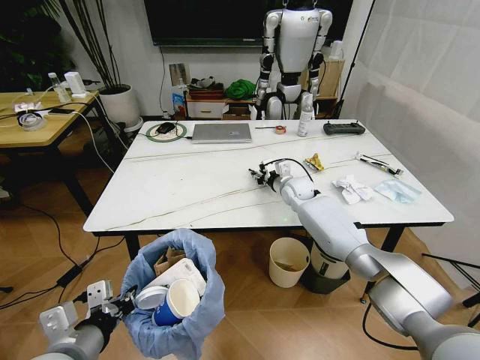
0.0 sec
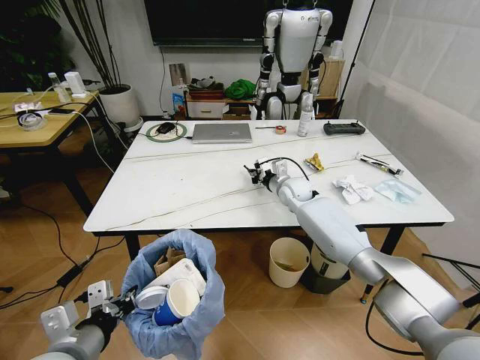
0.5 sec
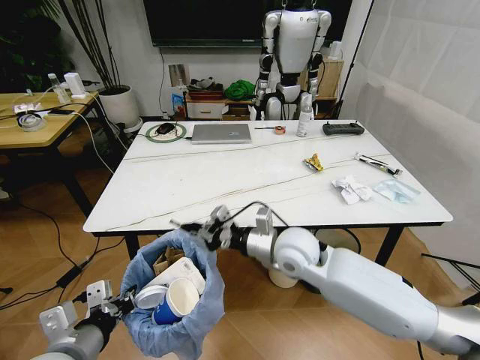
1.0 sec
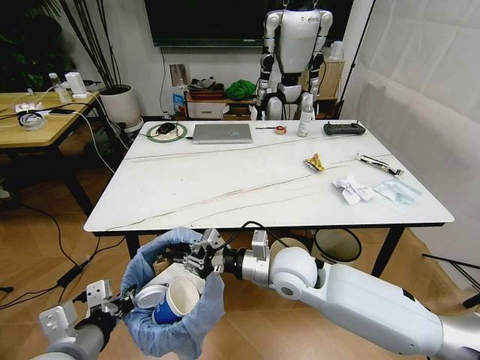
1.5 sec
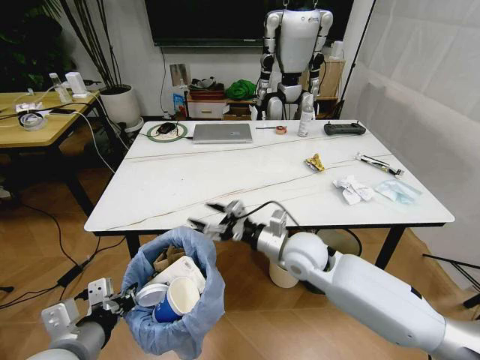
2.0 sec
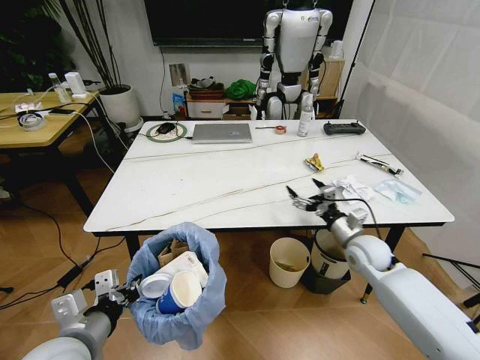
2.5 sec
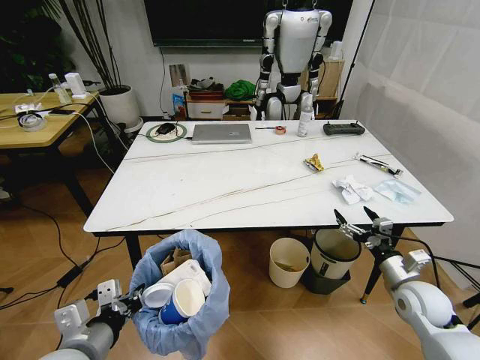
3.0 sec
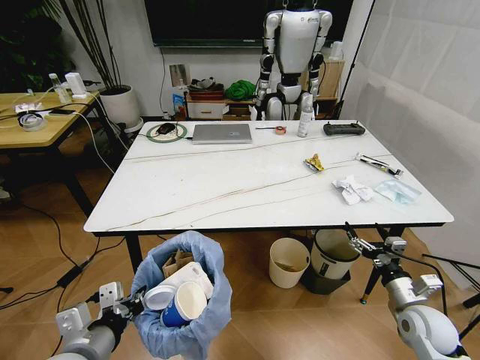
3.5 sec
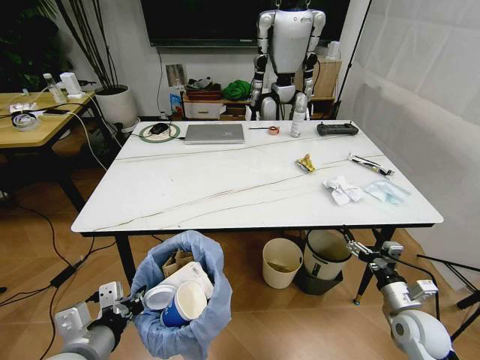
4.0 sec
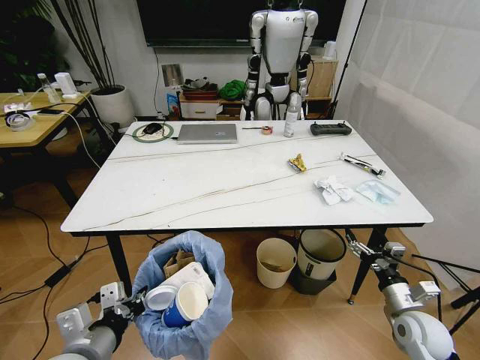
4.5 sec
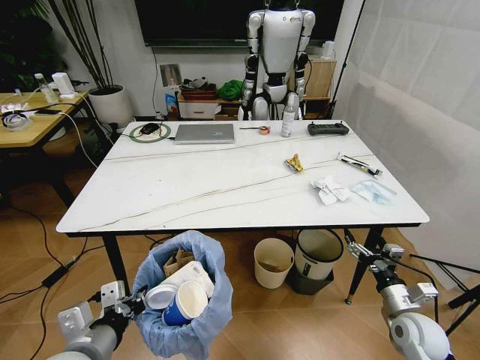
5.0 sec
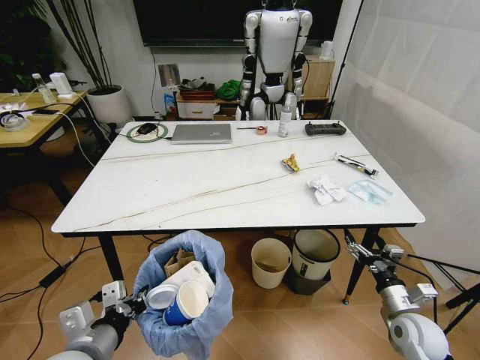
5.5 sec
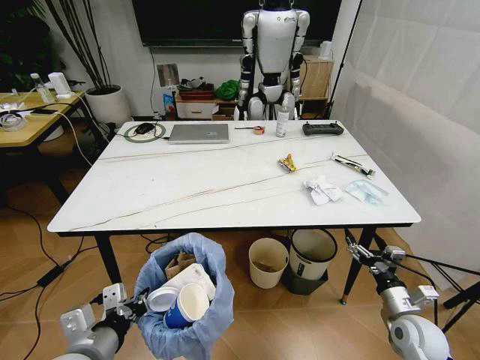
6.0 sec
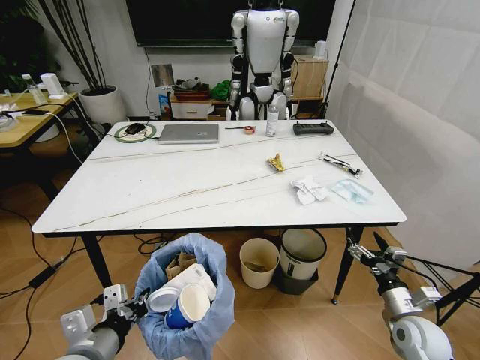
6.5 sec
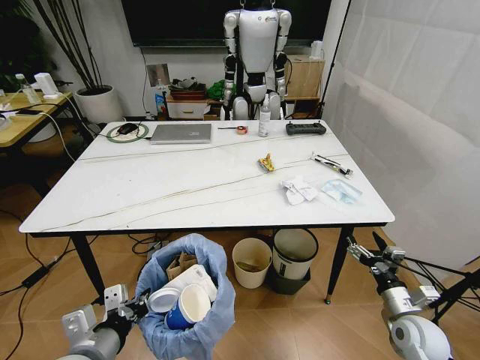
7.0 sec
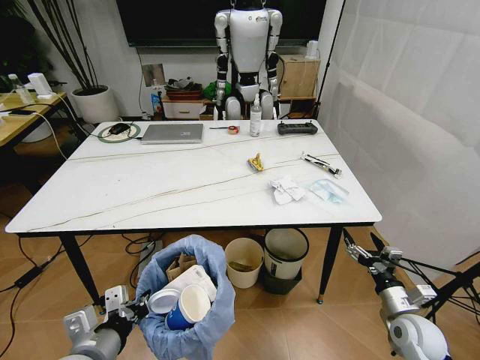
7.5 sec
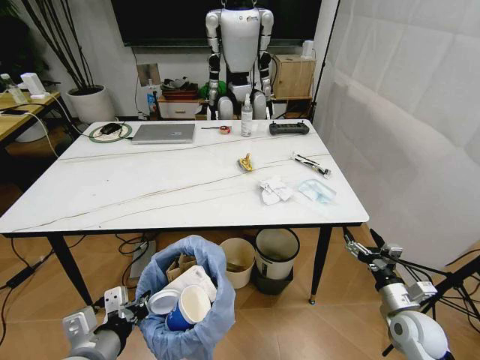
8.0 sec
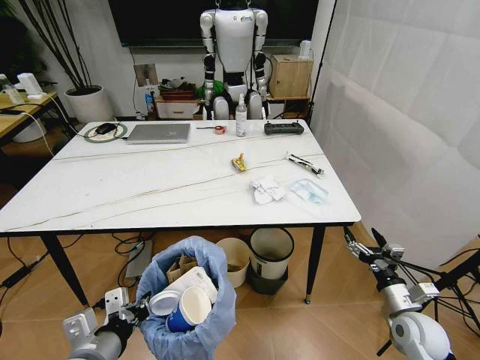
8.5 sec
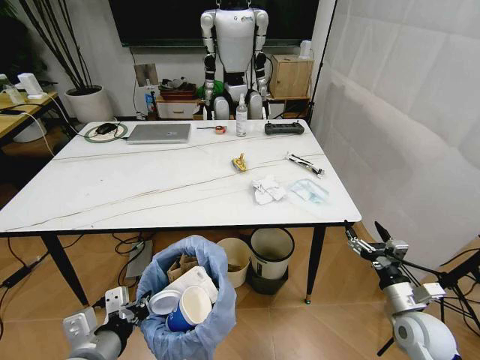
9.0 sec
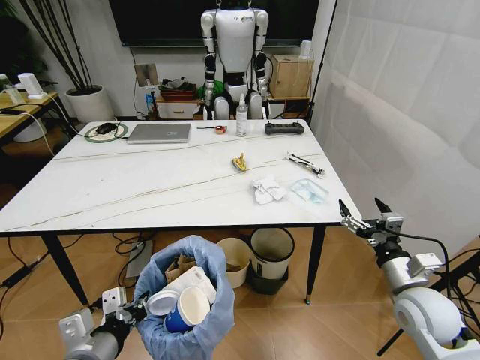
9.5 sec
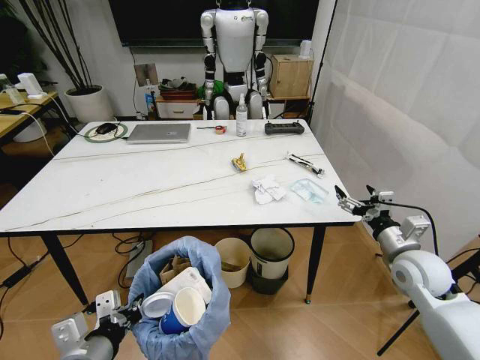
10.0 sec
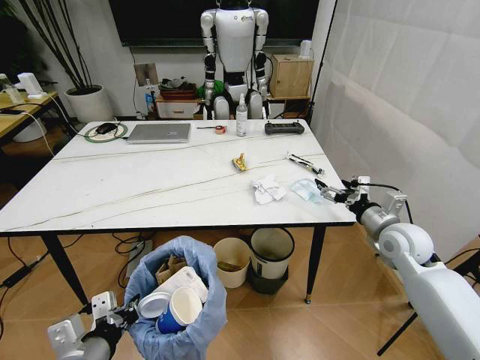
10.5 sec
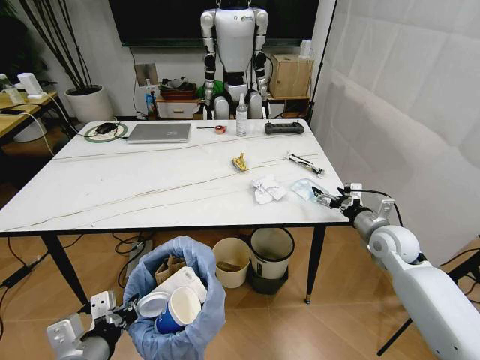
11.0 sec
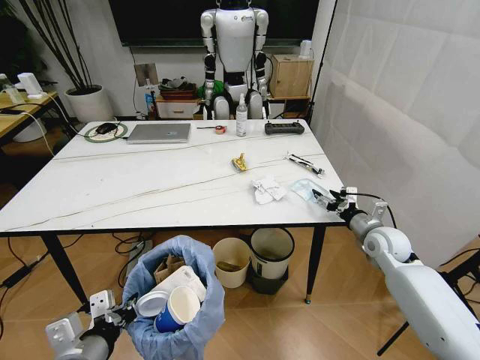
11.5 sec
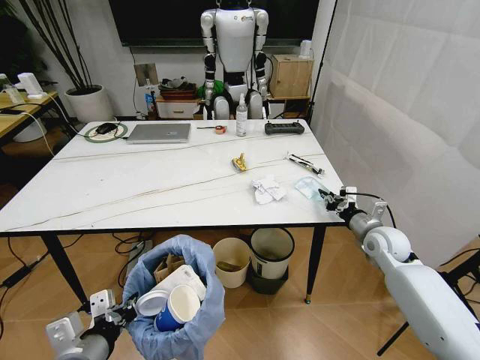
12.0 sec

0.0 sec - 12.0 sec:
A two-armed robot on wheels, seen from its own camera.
Task of the whole recording: Pick up the trash bin and place the trash from the table into it.
0.0 sec - 2.0 sec: The right gripper moves backward, about 25 cm, and opens.
2.0 sec - 4.0 sec: The right gripper travels to the right, backward and downward by roughly 30 cm.
8.0 sec - 10.0 sec: The right gripper travels upward and forward by about 15 cm.
10.0 sec - 12.0 sec: The right gripper heads forward, covering roughly 10 cm, and closes up.

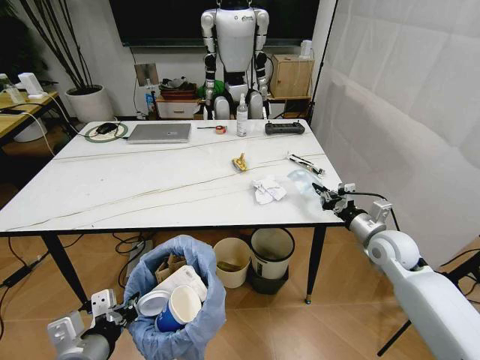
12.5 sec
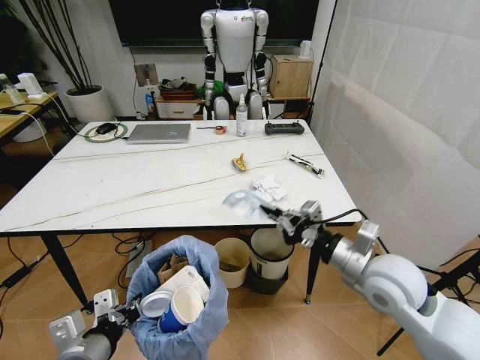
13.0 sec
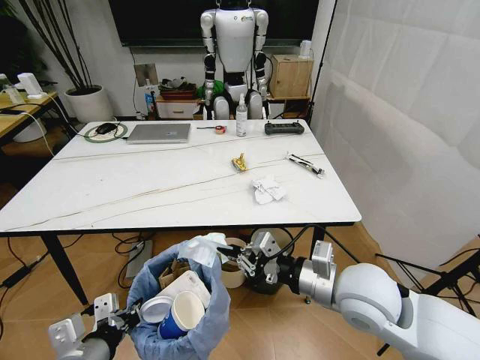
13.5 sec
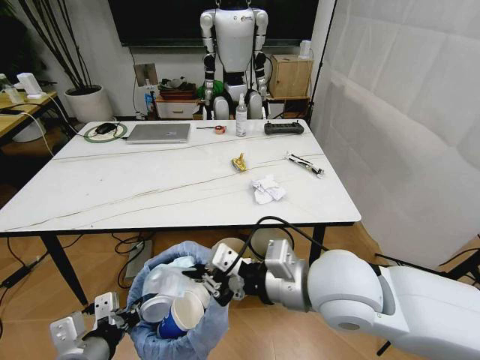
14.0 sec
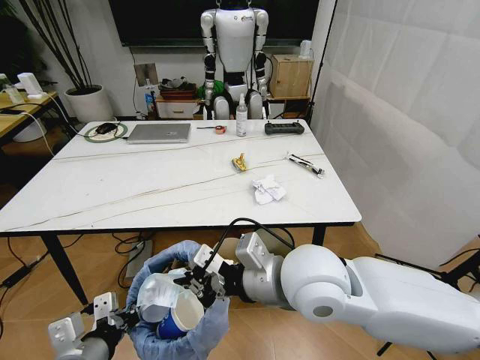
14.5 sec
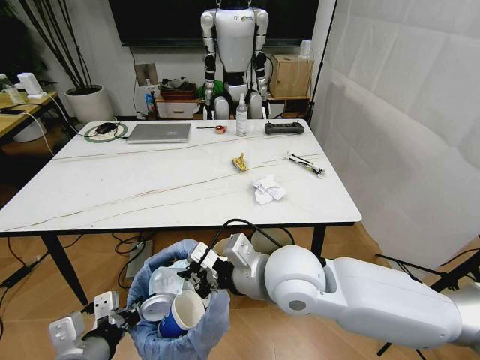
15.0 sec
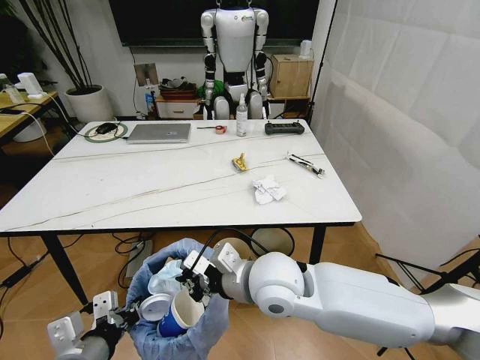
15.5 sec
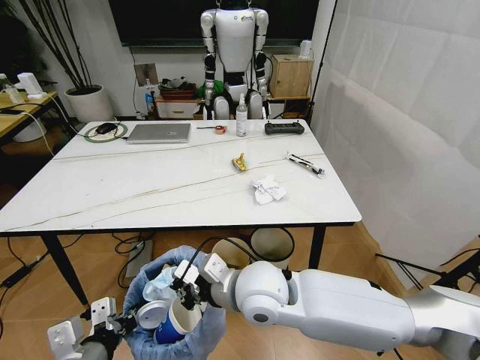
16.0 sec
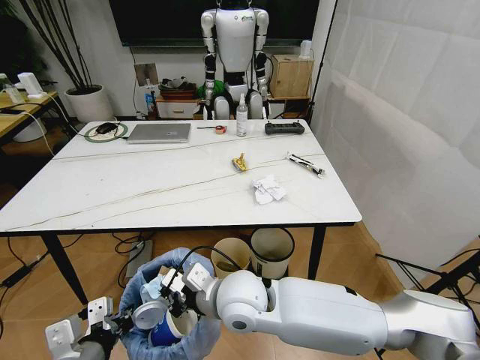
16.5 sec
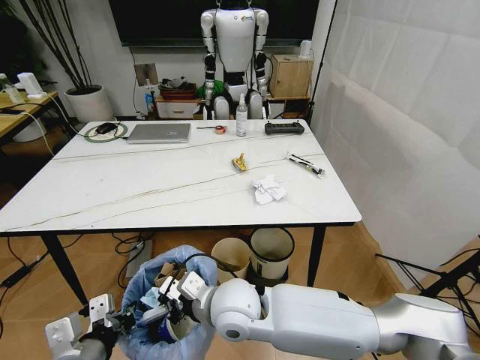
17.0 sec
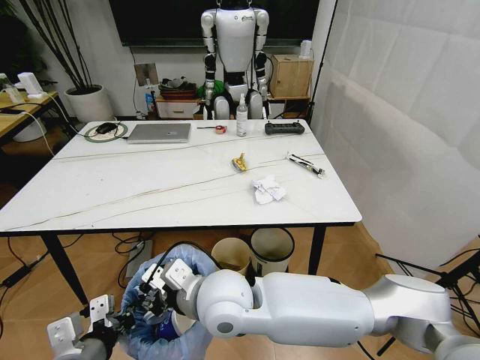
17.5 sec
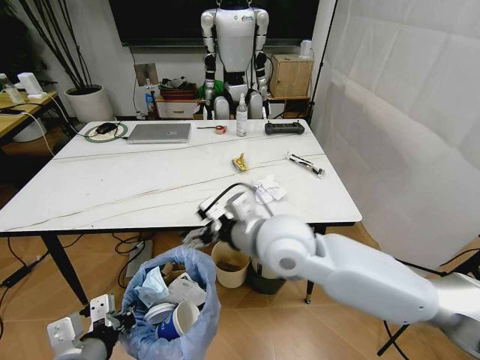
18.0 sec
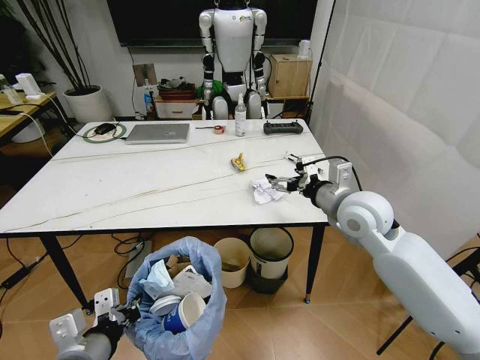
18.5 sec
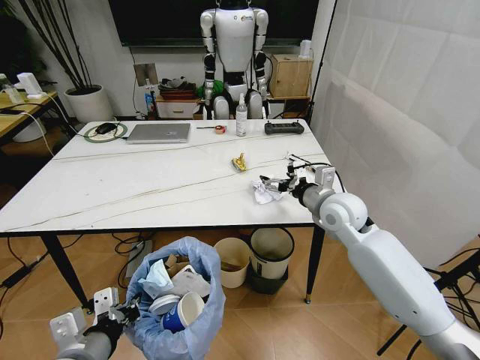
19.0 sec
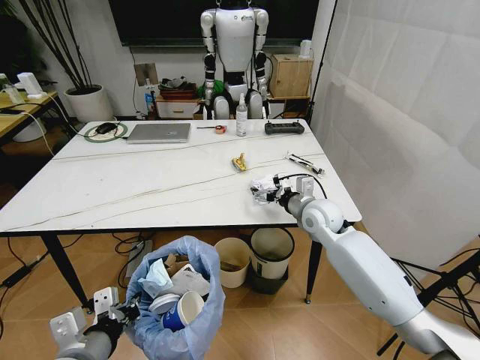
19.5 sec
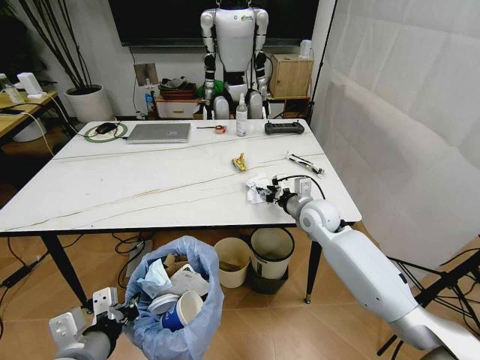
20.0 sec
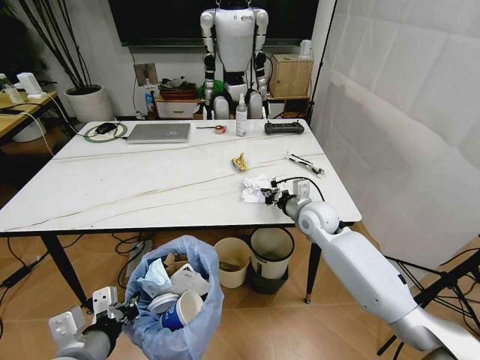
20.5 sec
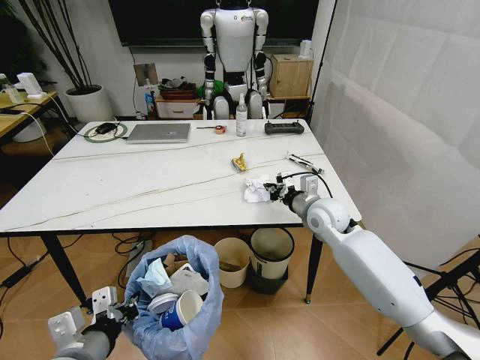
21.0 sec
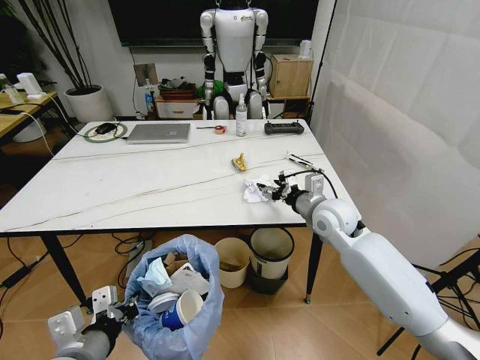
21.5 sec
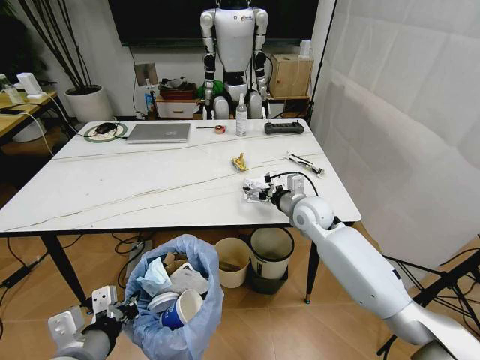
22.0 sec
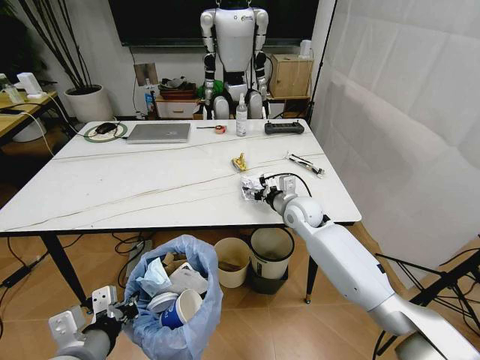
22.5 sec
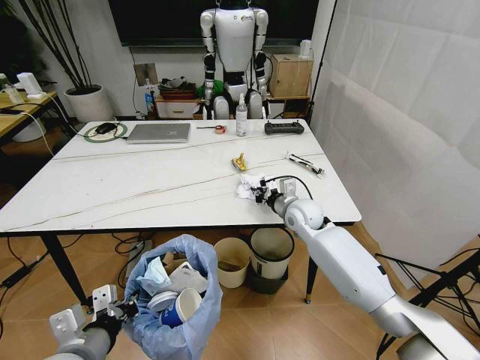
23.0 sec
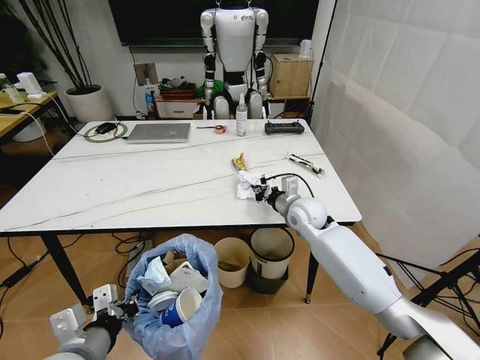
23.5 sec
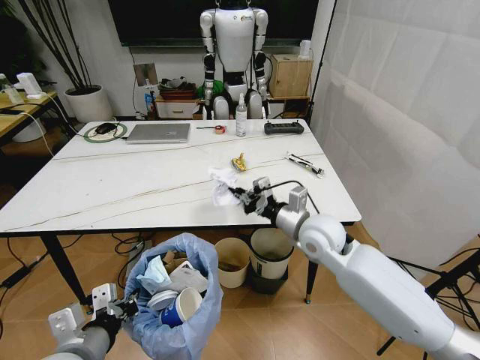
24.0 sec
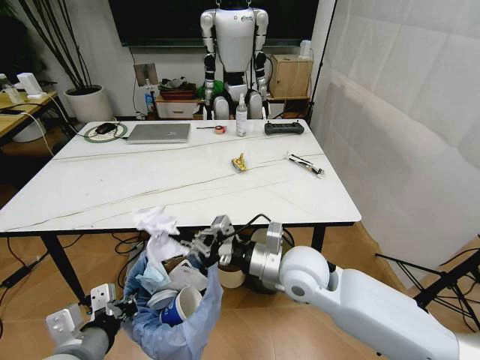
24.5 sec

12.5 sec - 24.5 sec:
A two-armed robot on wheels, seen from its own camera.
Task of the whole recording: Pick up the trash bin and place the trash from the table into it.
12.5 sec - 14.5 sec: The right gripper shifts roughly 35 cm to the left, upward and backward.
14.5 sec - 16.5 sec: The right gripper moves downward and to the left, approximately 15 cm.
16.5 sec - 18.5 sec: The right gripper goes roughly 30 cm to the right and forward, and opens its fingers.
18.5 sec - 20.5 sec: The right gripper travels downward and forward by some 15 cm, and closes.
20.5 sec - 22.5 sec: The right gripper opens its fingers.
22.5 sec - 24.5 sec: The right gripper moves backward, some 20 cm, and closes its fingers.

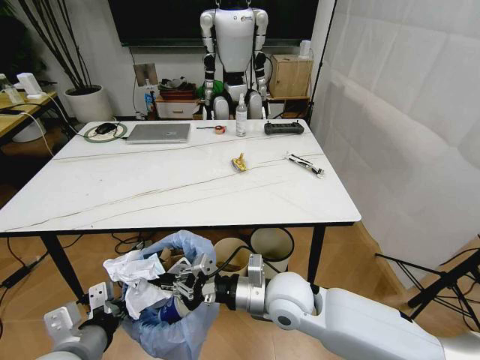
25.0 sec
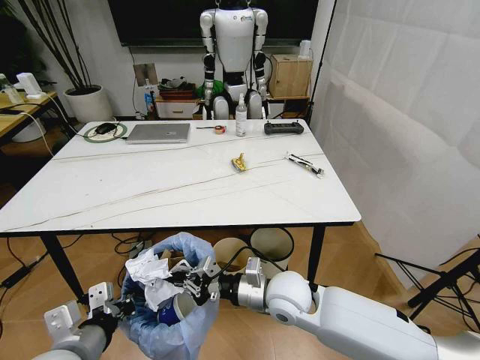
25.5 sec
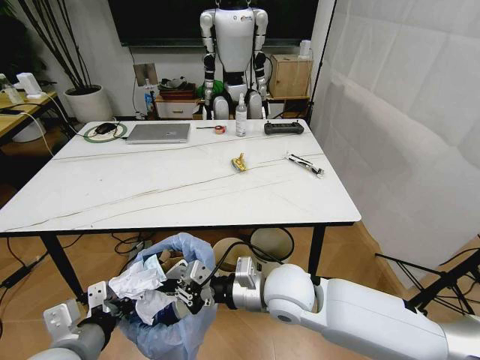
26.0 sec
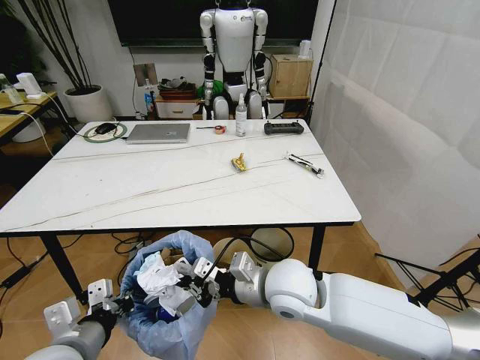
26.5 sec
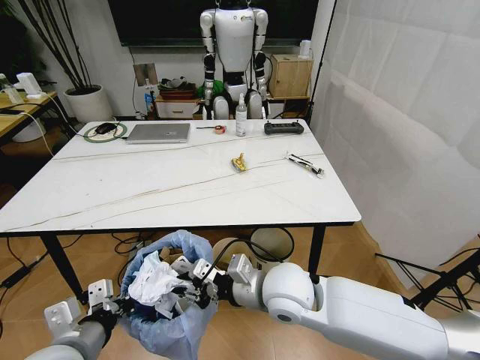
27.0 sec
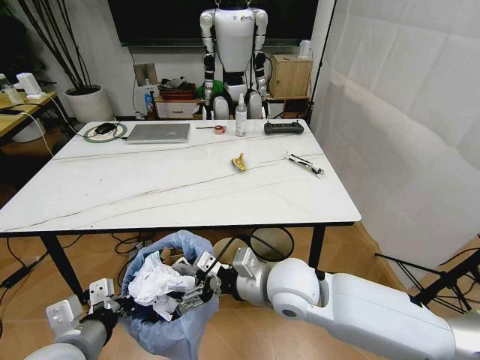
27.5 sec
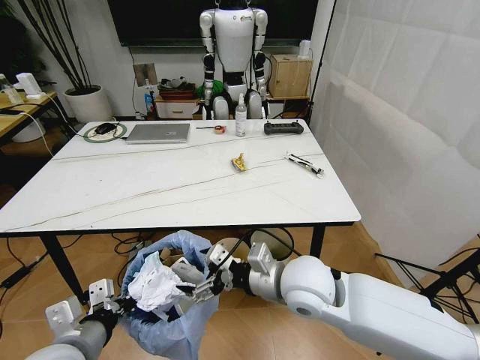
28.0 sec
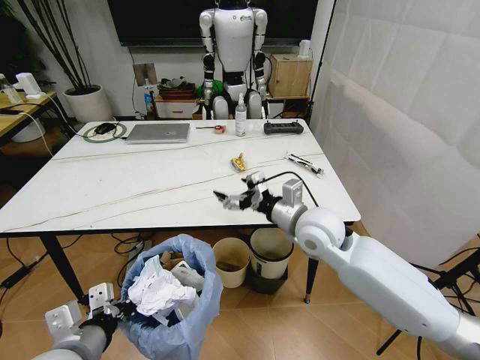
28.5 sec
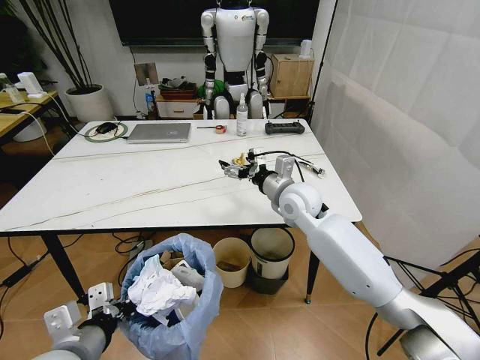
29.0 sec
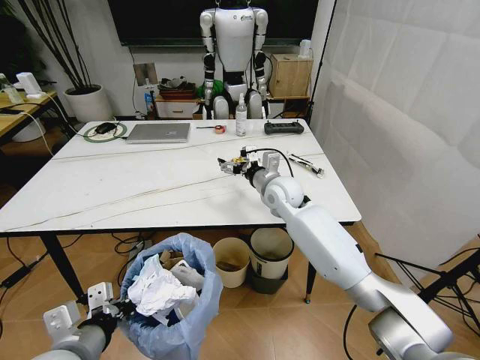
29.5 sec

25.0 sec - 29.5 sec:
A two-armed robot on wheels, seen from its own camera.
Task of the whole recording: Pick up the trash bin and place the trash from the table into it.
25.0 sec - 27.0 sec: The right gripper opens its fingers.
27.0 sec - 29.5 sec: The right gripper travels forward by about 25 cm, and opens its fingers.
